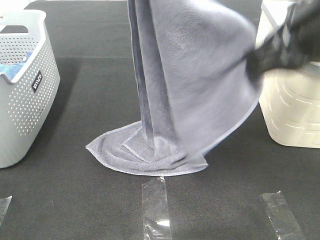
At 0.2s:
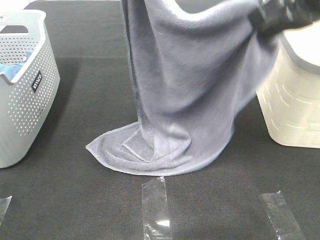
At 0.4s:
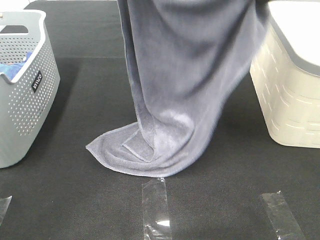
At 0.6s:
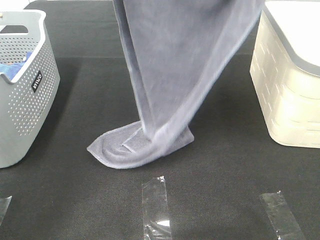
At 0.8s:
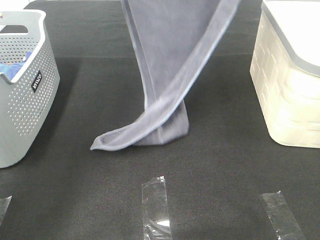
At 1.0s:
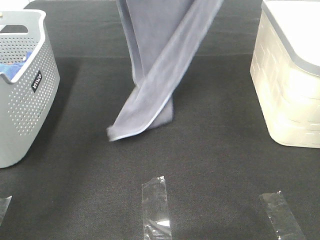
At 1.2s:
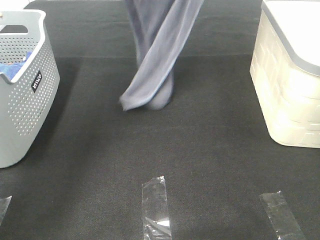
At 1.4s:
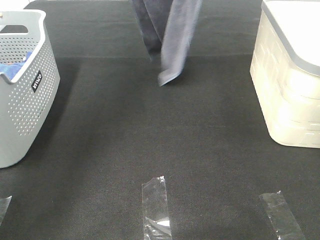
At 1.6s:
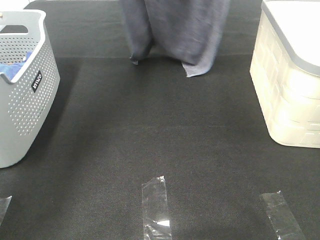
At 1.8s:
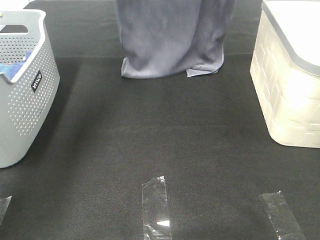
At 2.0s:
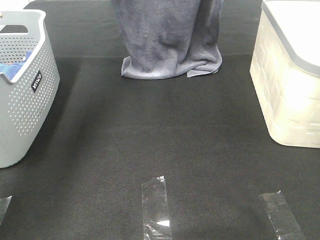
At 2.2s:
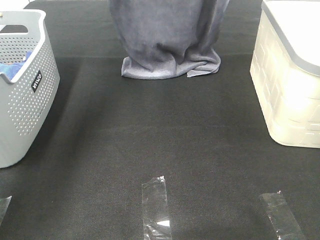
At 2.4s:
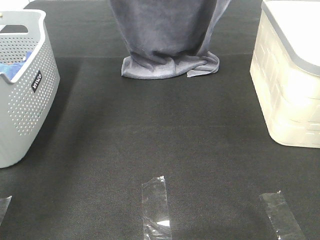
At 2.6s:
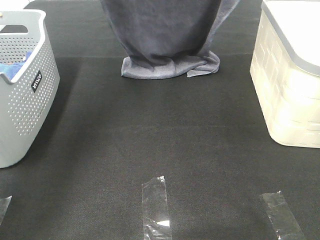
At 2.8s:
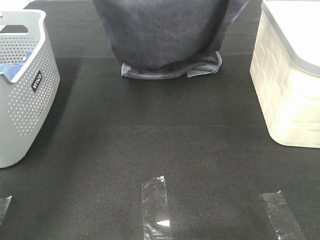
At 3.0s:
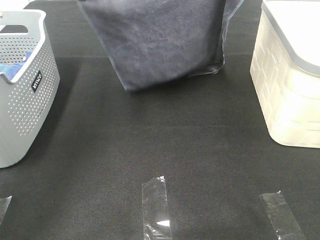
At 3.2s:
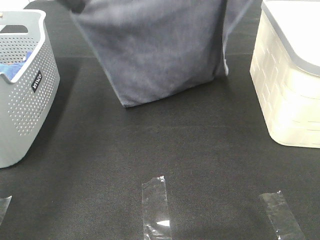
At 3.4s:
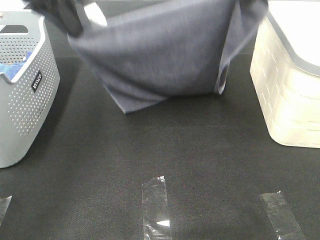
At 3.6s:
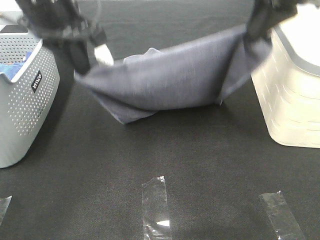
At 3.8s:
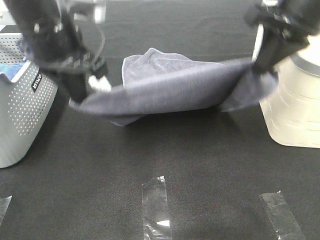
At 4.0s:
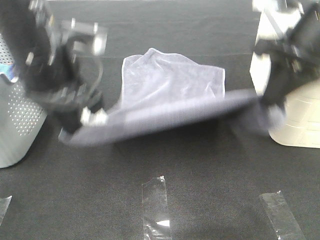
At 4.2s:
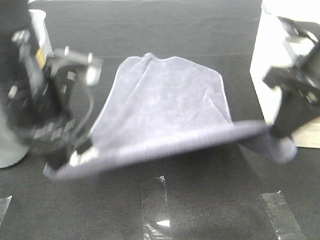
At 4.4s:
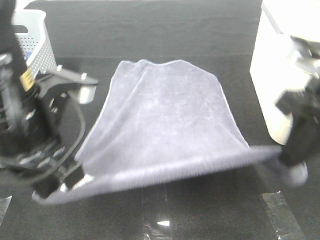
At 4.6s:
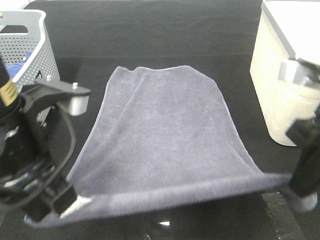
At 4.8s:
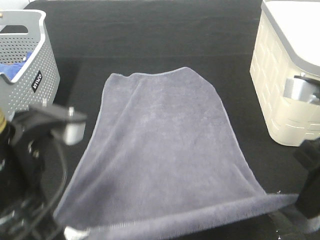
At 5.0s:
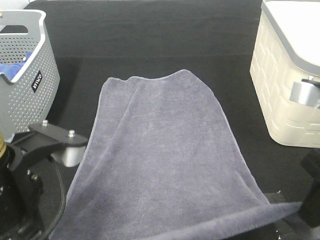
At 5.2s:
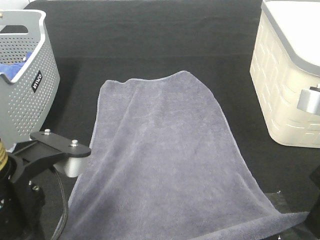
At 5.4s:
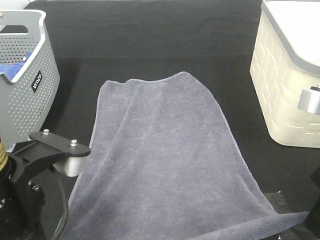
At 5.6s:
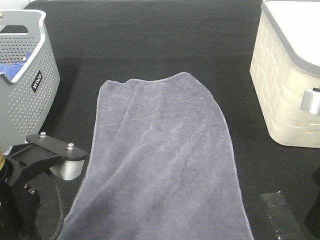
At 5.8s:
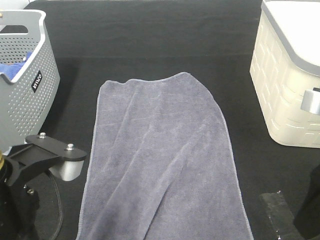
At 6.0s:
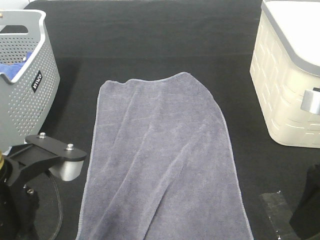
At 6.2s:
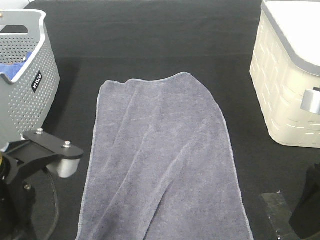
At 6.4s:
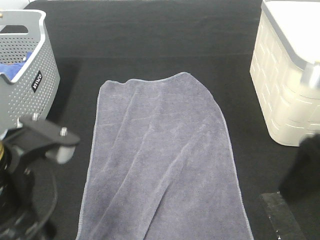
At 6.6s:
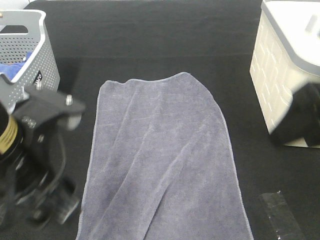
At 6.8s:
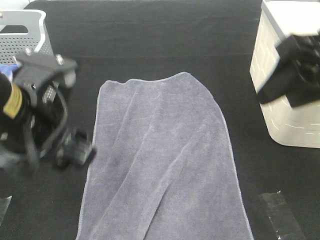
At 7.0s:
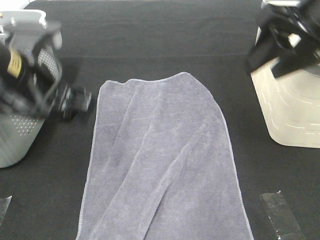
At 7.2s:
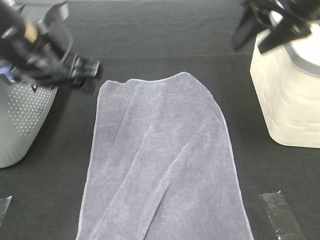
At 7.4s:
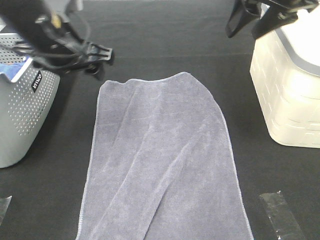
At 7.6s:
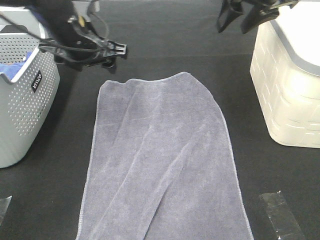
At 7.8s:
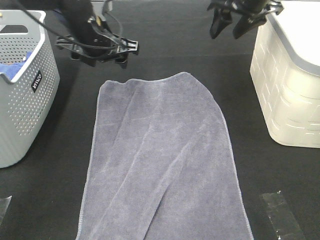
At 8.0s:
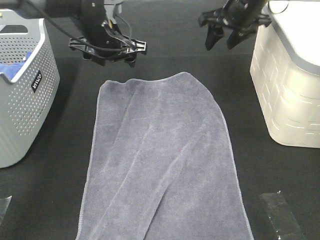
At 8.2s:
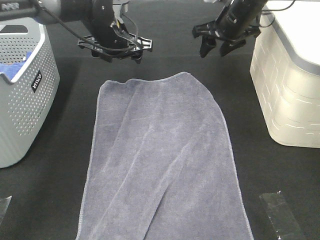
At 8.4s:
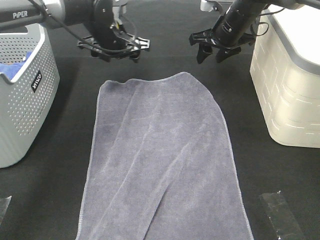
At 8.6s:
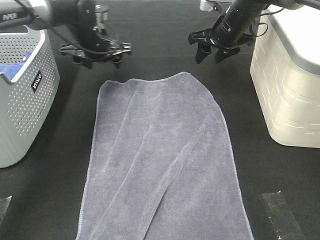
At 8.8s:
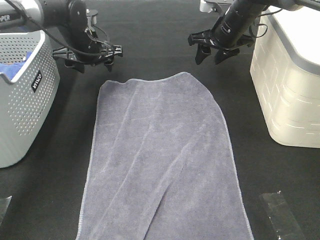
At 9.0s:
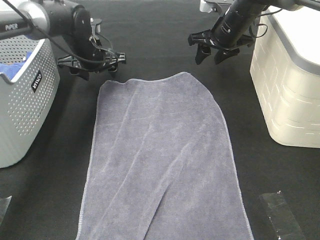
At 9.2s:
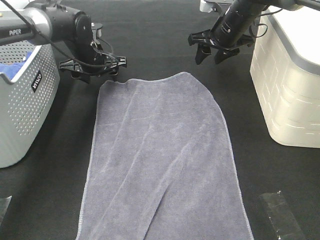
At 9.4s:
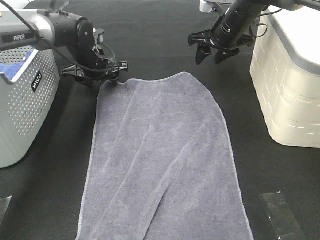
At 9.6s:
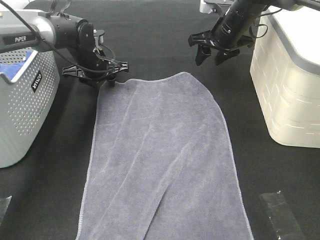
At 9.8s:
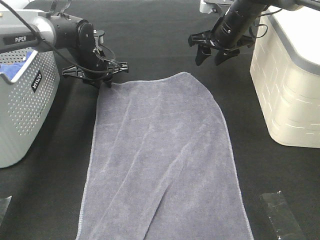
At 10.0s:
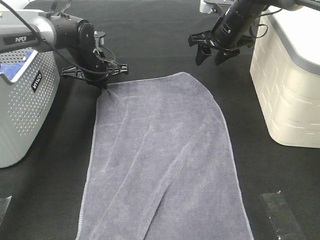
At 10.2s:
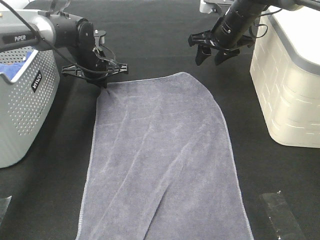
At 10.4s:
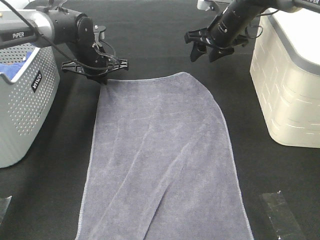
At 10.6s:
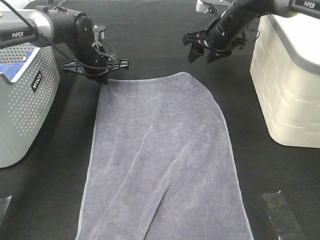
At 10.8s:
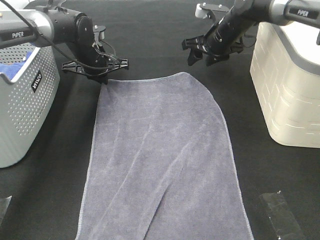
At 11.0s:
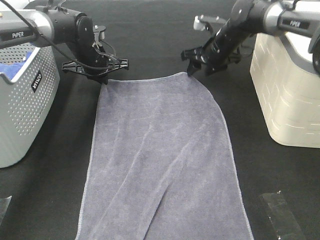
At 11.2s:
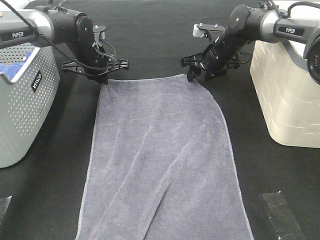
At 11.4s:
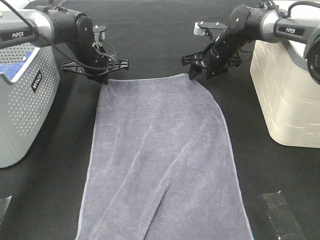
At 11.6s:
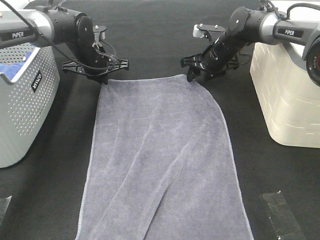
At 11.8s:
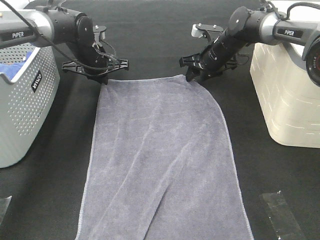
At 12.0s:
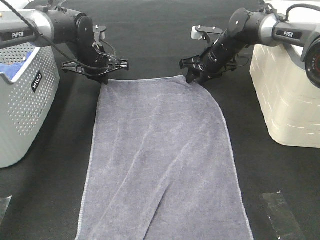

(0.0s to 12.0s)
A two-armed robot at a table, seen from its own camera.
Task of the whole recording: Remove the towel and place it.
Step, 0.6s - 7.8s: Left hand:adjust the gray towel.
Step, 0.6s - 7.8s: Right hand:adjust the gray towel.
0.0s - 1.6s: The right gripper is displaced forward and upward by about 30 cm. Meanwhile the left gripper travels forward and to the left by roughly 15 cm.
1.6s - 3.0s: The right gripper moves backward, about 5 cm, while the left gripper shifts approximately 10 cm backward and downward.
3.0s - 4.4s: The two grippers go some 25 cm backward and downward.
4.4s - 6.0s: Both grippers move backward, approximately 5 cm. The right gripper opens up; the left gripper opens up.
6.0s - 7.6s: The two grippers go approximately 30 cm forward.
7.6s - 9.0s: The right gripper heads downward and forward, covering roughly 15 cm; the left gripper is displaced forward and downward by roughly 15 cm.
9.0s - 10.4s: The left gripper closes its fingers.
10.4s - 12.0s: The right gripper heads downward, covering roughly 10 cm.

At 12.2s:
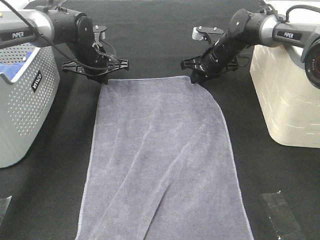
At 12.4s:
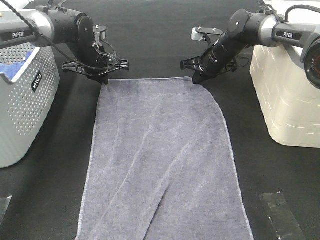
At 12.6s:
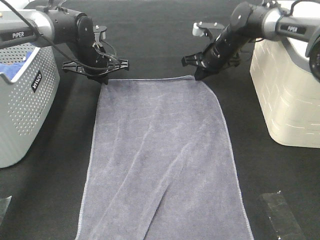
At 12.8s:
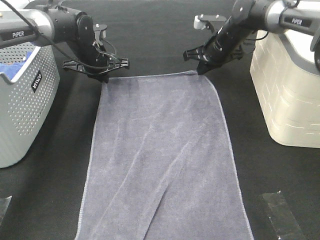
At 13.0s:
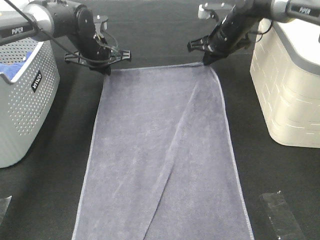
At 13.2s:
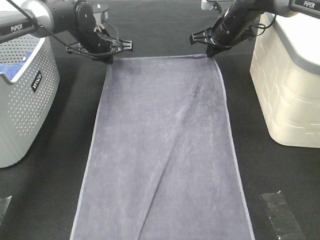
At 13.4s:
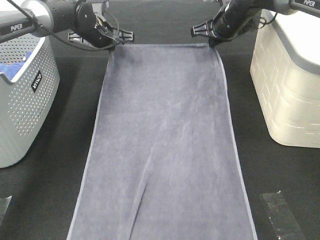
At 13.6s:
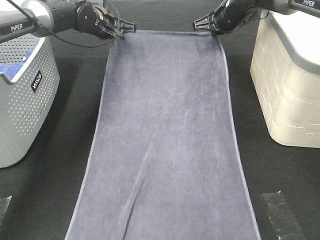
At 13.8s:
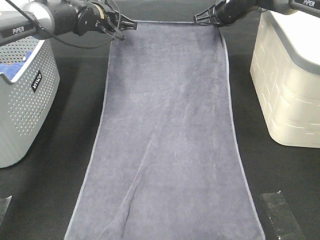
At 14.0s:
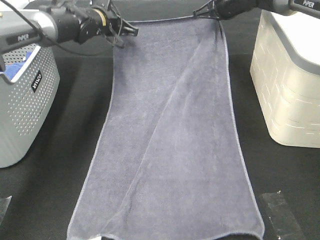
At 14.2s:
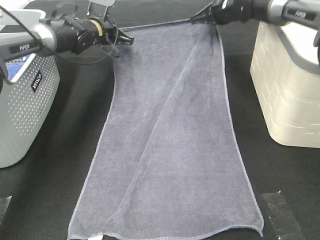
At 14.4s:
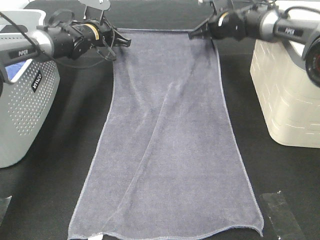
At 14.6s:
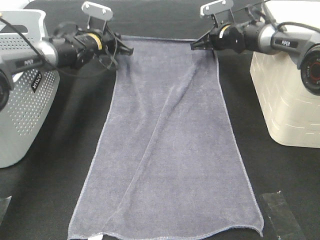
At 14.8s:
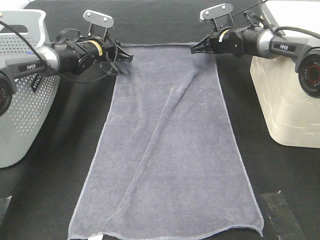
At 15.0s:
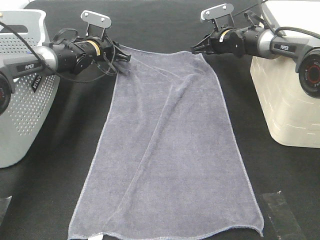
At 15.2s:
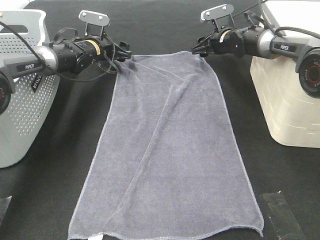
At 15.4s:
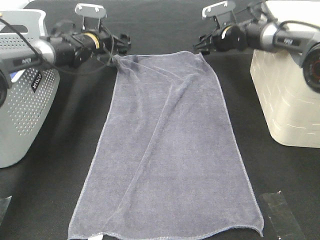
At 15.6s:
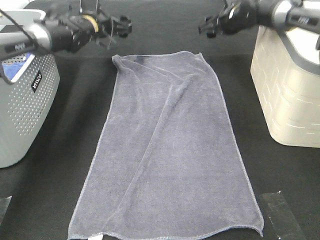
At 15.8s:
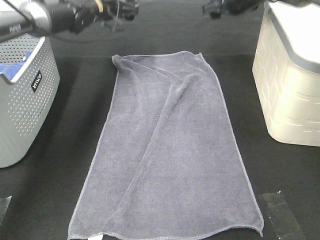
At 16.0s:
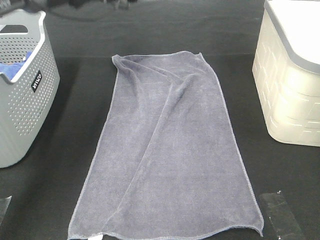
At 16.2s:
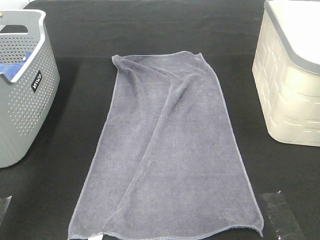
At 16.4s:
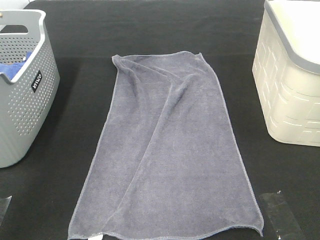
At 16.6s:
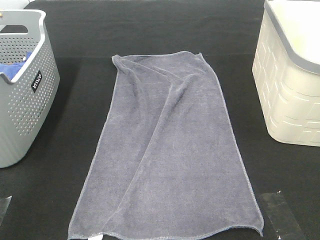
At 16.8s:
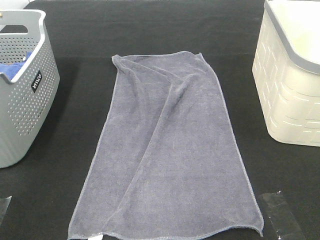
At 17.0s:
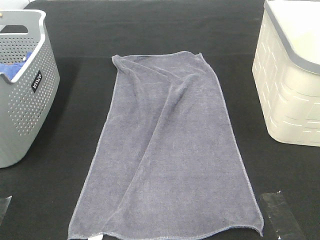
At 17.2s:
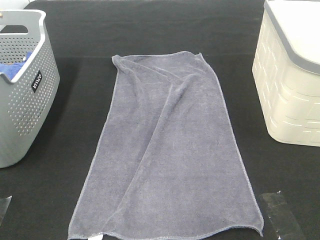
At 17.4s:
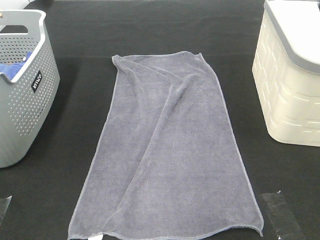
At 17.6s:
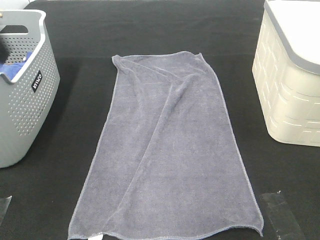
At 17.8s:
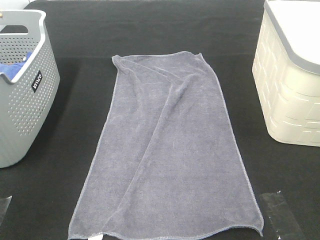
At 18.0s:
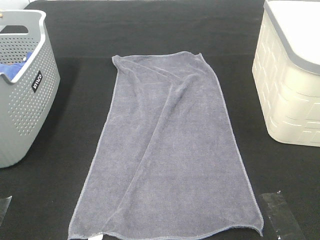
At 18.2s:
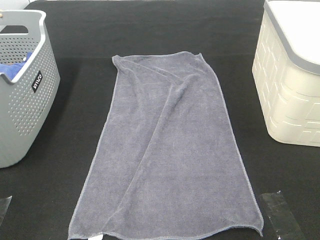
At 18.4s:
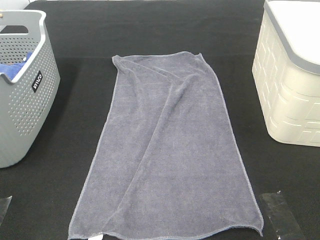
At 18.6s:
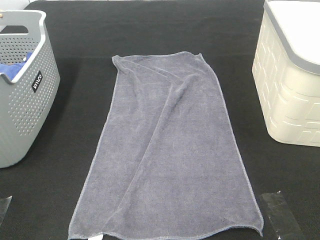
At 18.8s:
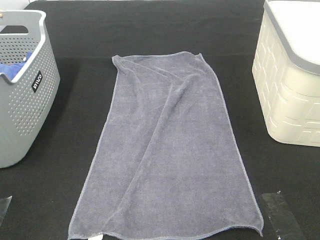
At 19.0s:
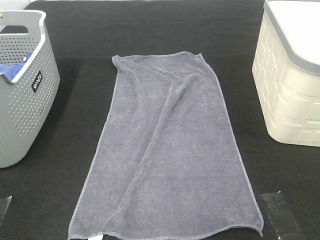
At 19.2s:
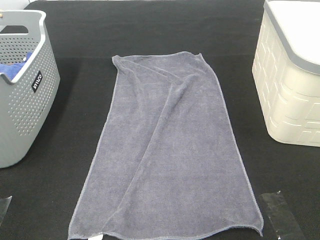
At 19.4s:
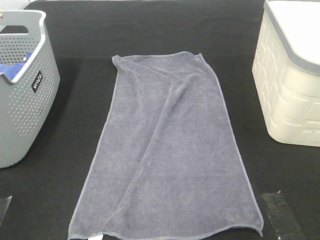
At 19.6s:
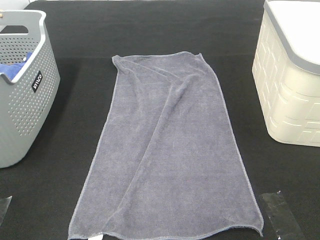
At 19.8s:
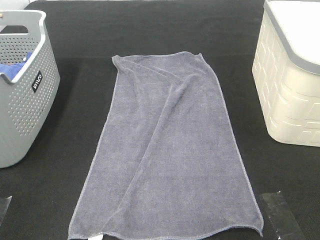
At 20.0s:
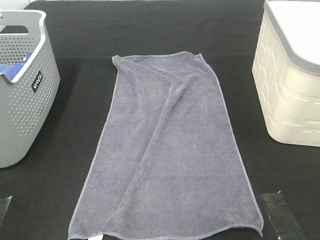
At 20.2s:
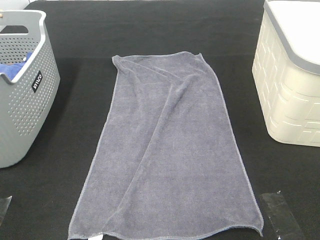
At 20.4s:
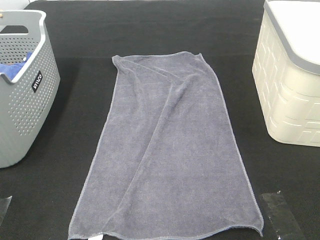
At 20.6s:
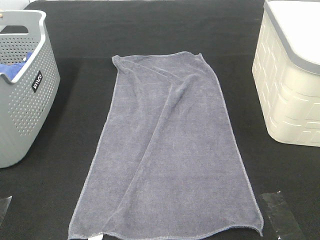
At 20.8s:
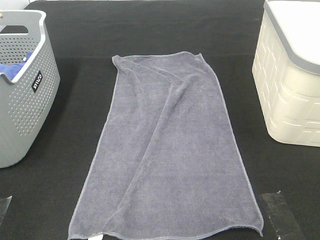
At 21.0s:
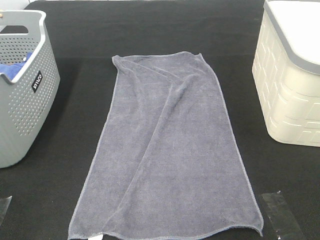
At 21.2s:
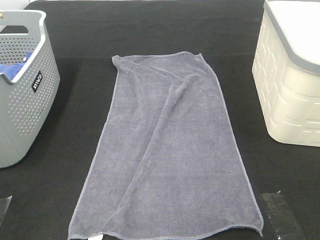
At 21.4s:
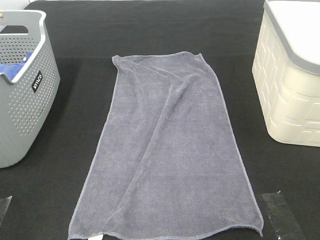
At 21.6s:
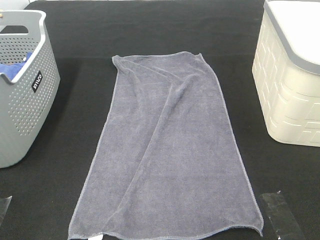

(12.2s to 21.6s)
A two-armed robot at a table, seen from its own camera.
Task of the whole recording: Remove the towel and place it.
12.2s - 13.8s: The right gripper heads upward, covering some 10 cm; the left gripper goes roughly 5 cm upward.
13.8s - 15.4s: The two grippers go some 5 cm downward. The right gripper opens up; the left gripper opens its fingers.
15.4s - 17.0s: The two grippers go about 40 cm upward and backward.
17.0s - 18.4s: The left gripper shifts some 40 cm backward, to the left and downward.

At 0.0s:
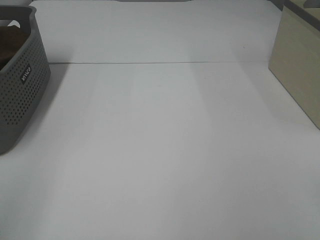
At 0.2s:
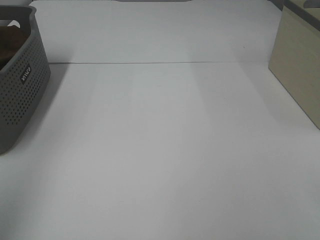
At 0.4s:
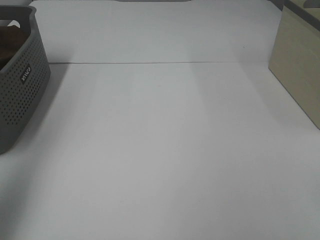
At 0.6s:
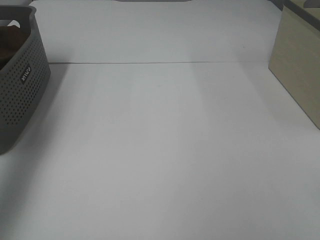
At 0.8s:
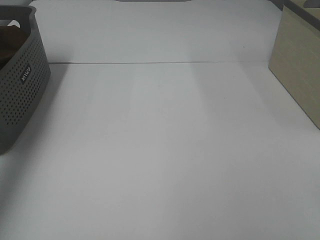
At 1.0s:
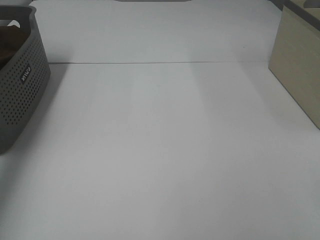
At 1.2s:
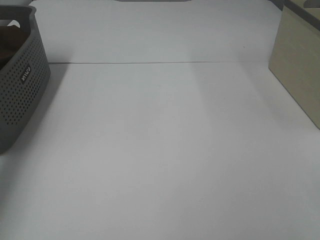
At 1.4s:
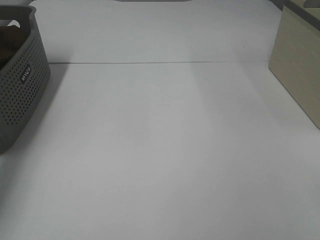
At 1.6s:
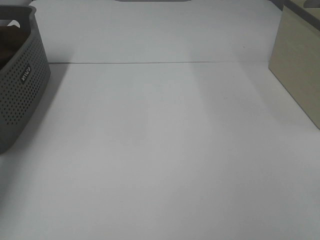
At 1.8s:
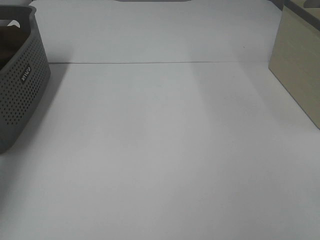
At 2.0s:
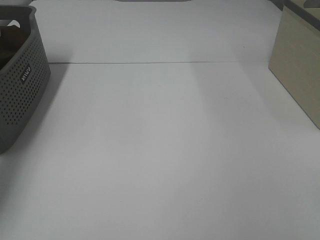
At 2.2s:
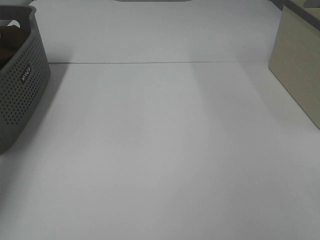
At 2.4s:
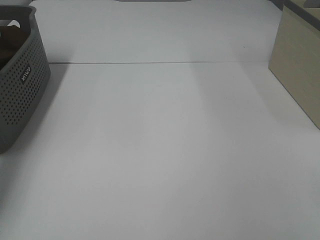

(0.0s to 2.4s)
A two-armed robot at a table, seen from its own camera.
Task of the whole recording: Remove the towel and place it.
0.0s - 1.2s: The left gripper heads forward, covering approximately 40 cm.
